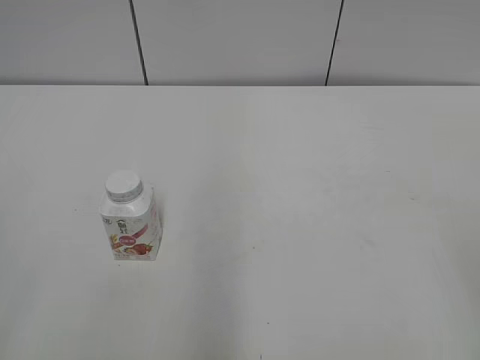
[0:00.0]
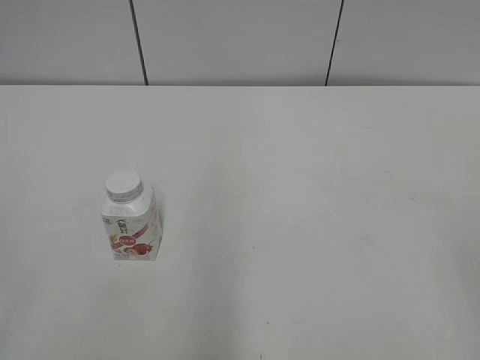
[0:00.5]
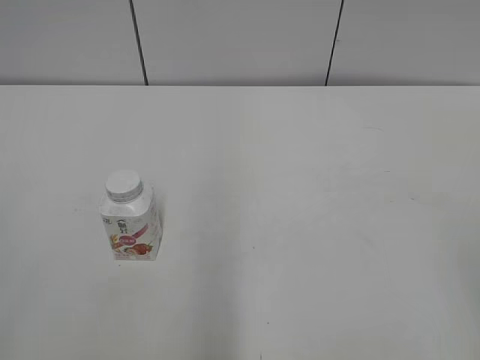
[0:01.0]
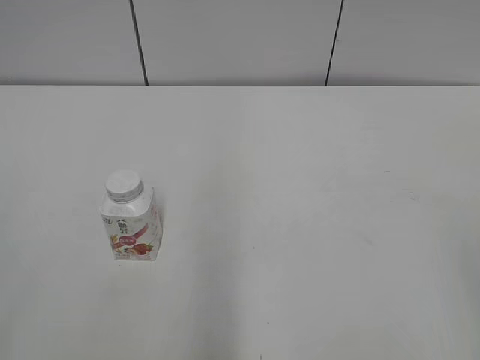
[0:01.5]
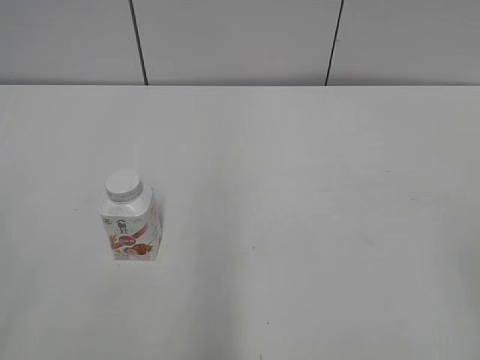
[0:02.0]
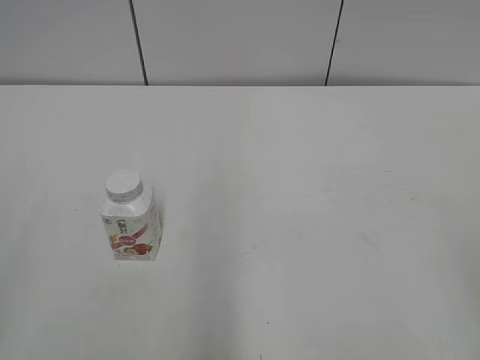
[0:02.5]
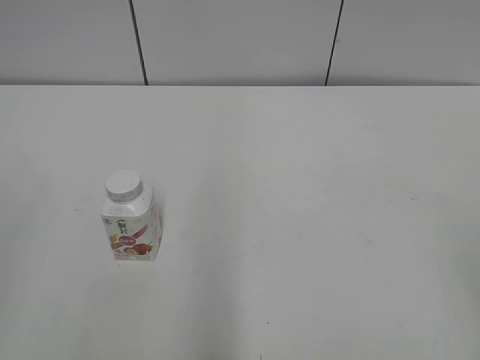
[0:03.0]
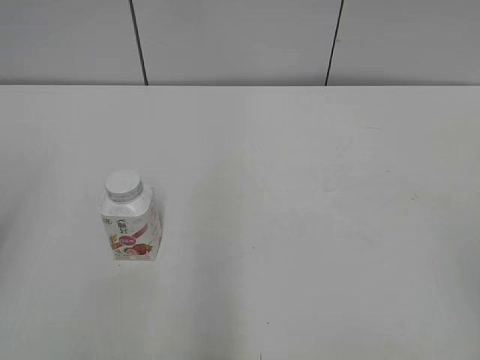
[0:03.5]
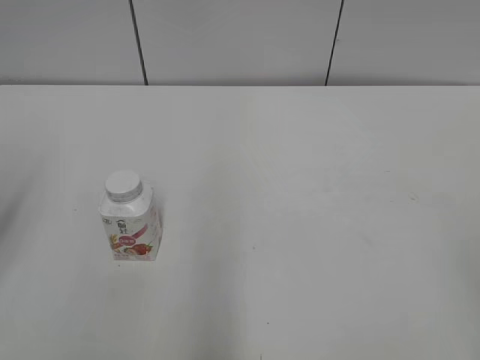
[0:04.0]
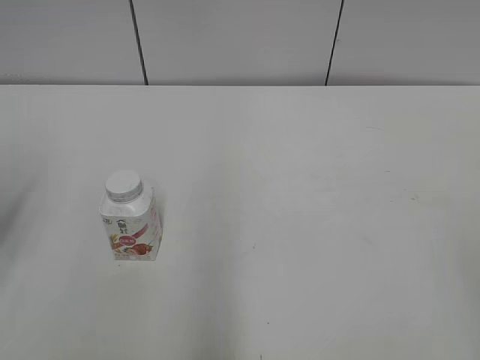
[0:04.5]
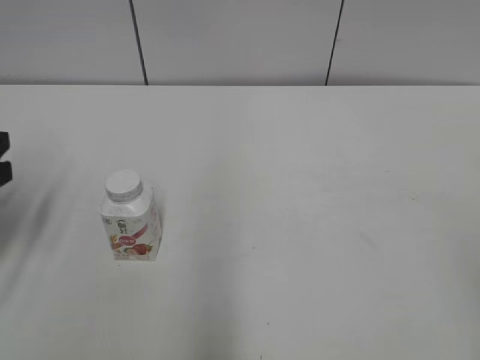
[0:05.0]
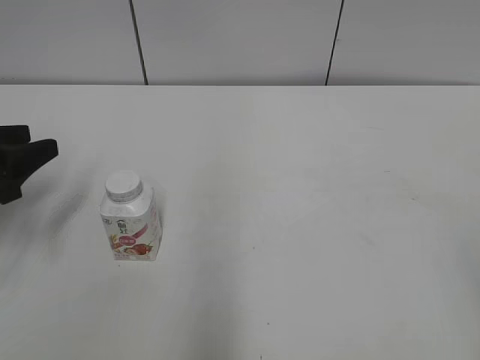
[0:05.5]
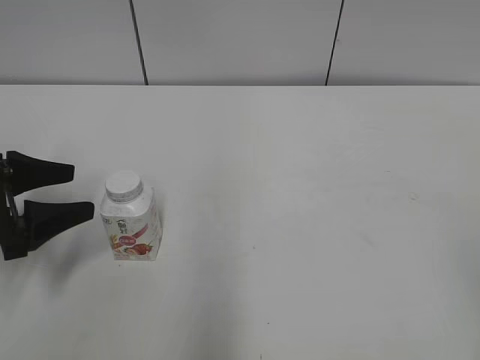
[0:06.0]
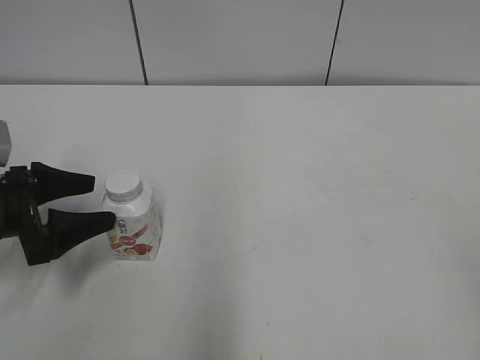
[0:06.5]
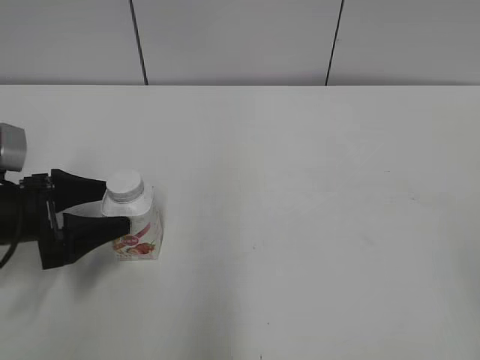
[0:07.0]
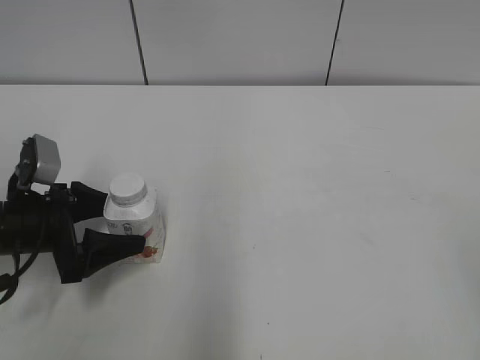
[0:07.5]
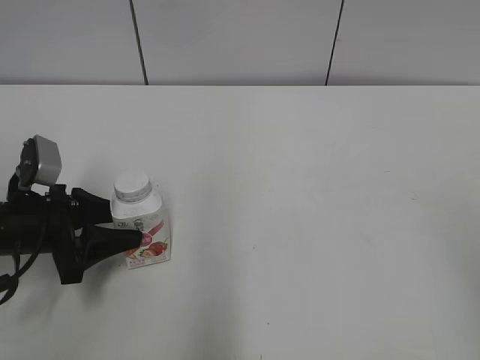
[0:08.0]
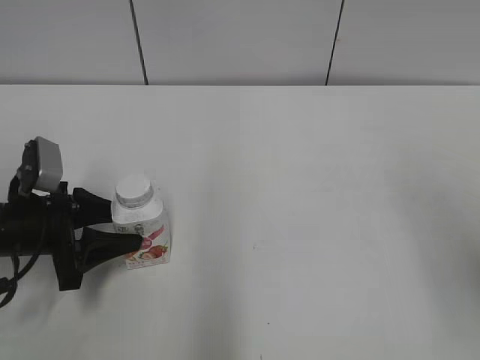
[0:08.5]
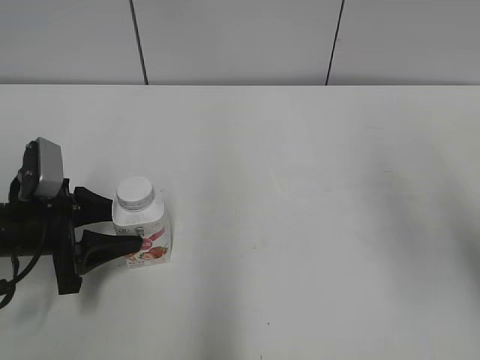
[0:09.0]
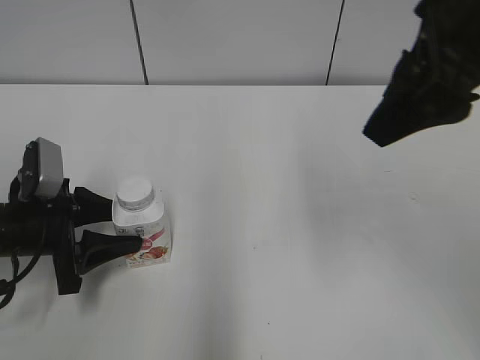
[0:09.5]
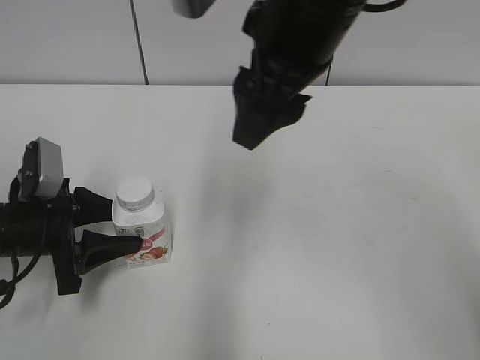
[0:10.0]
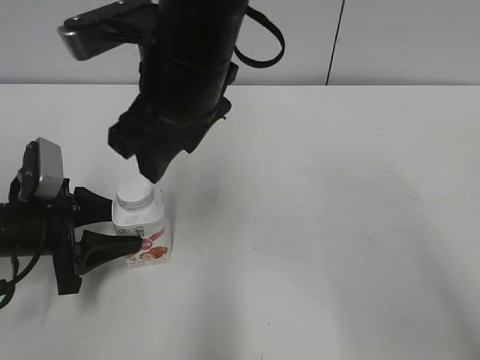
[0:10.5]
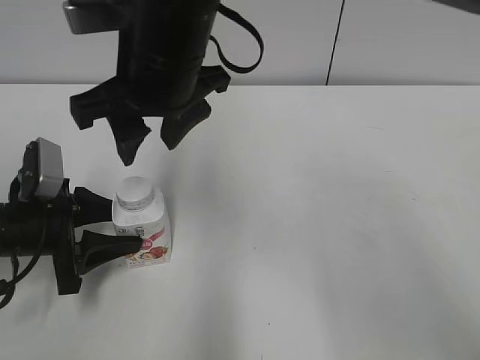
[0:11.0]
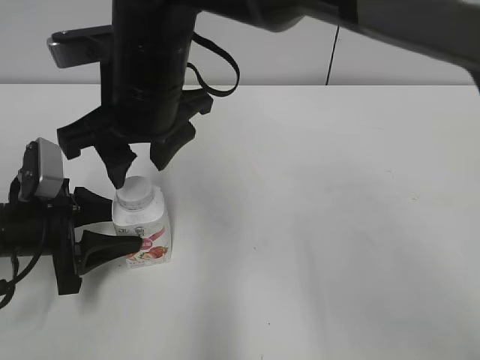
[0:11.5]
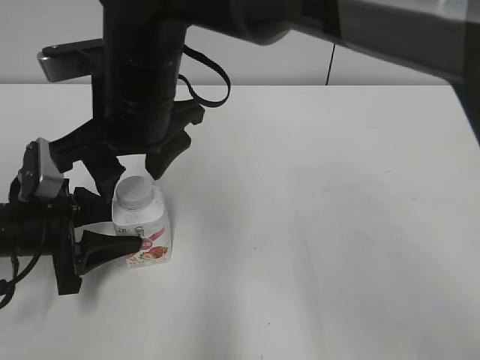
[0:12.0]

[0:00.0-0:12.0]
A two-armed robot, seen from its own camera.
Step, 0:00.0 to 0:08.0: Grab the Yili Changqing with the left hand.
0:04.0 to 0:06.0: The left gripper travels downward and forward by about 15 cm.
0:06.0 to 0:08.0: The left gripper ends up roughly 5 cm from where it was, and closes up.
0:08.0 to 0:10.0: The right gripper goes roughly 35 cm to the left and forward.
0:10.0 to 0:12.0: The right gripper travels to the left and downward by about 15 cm.

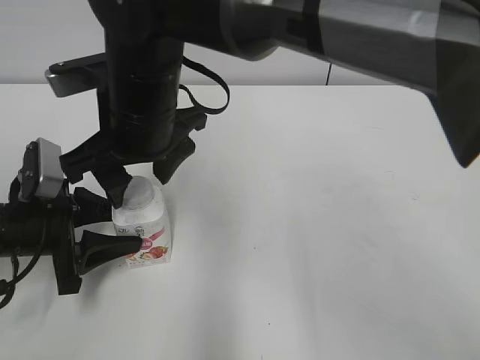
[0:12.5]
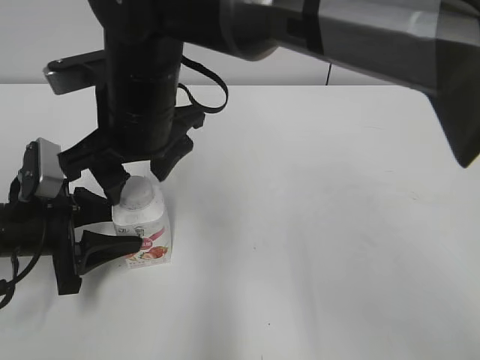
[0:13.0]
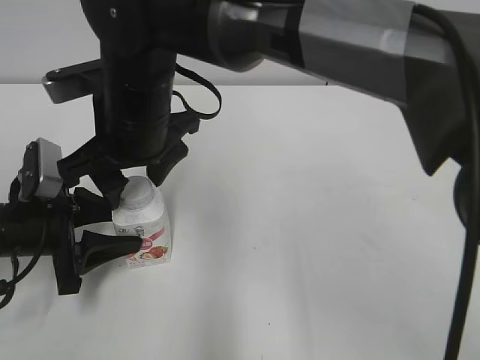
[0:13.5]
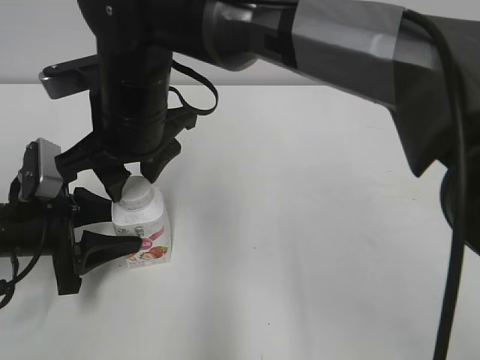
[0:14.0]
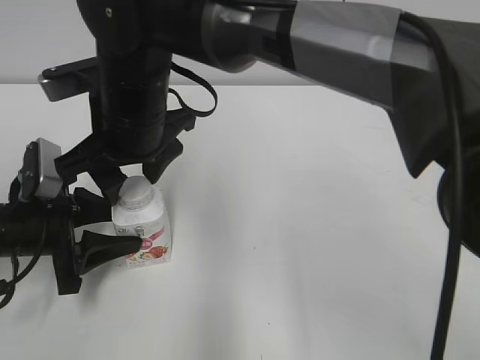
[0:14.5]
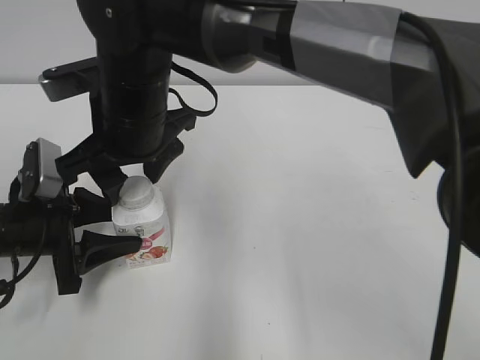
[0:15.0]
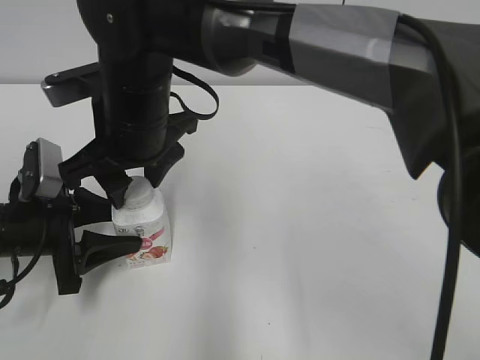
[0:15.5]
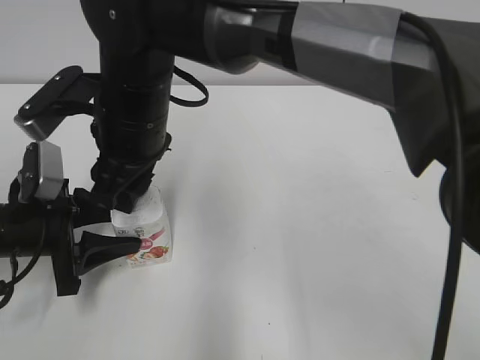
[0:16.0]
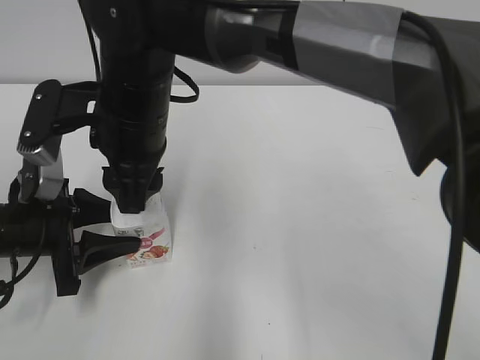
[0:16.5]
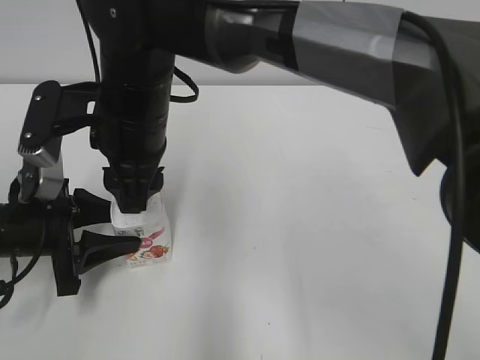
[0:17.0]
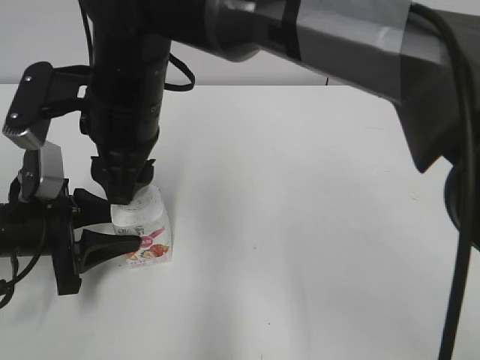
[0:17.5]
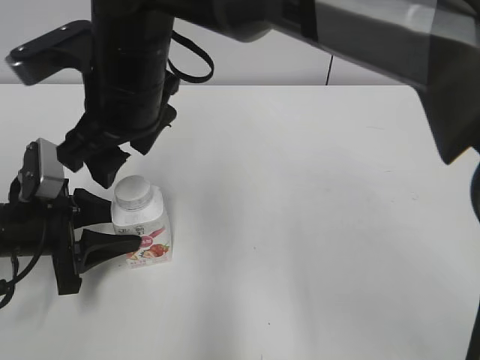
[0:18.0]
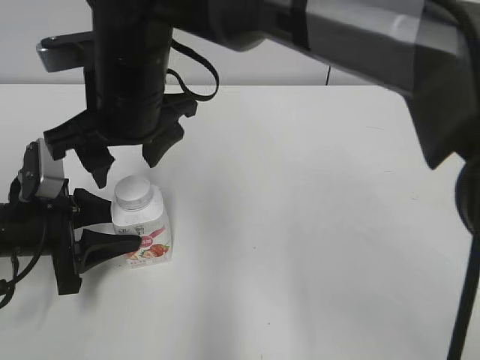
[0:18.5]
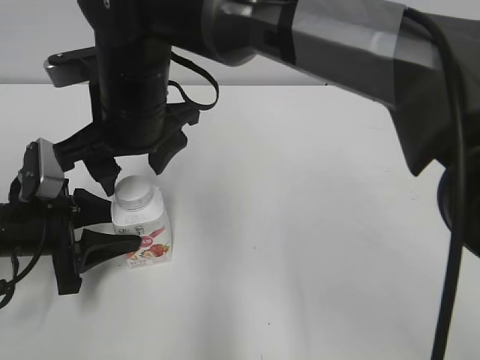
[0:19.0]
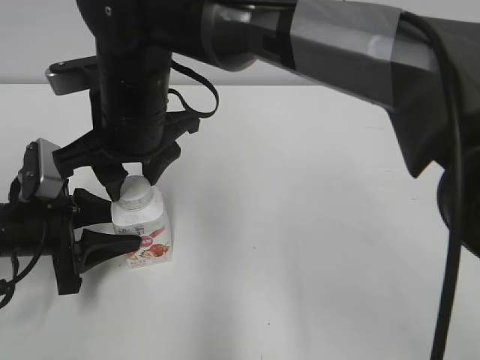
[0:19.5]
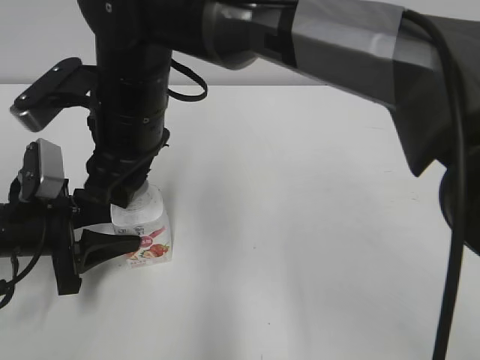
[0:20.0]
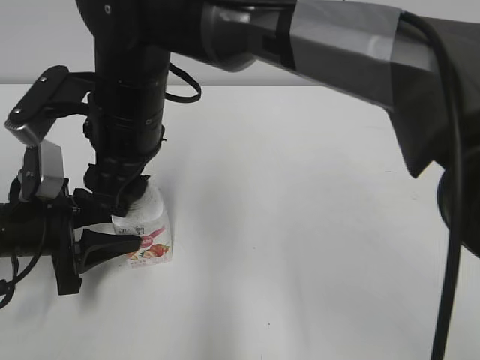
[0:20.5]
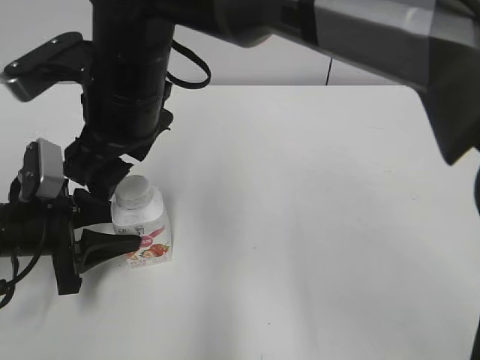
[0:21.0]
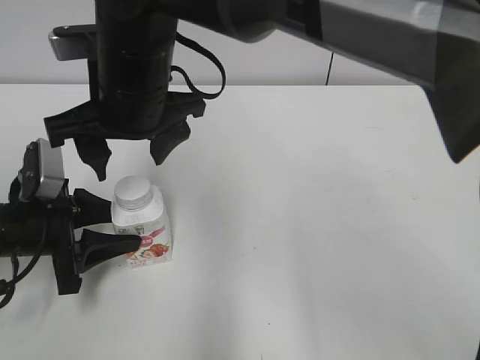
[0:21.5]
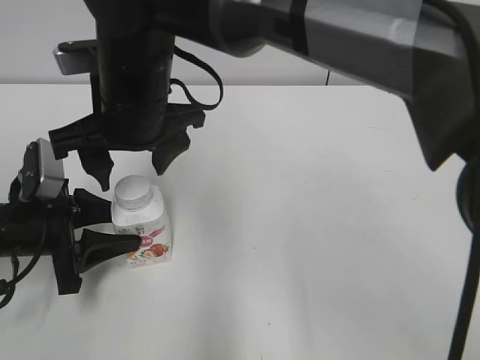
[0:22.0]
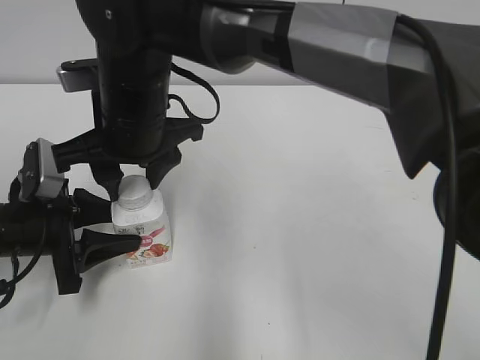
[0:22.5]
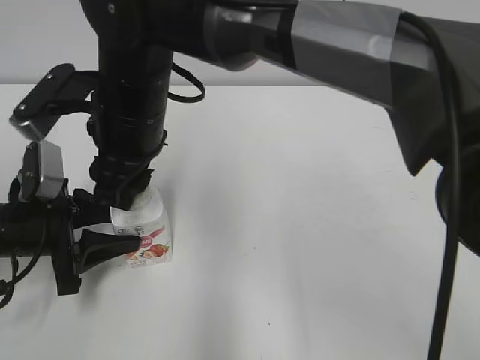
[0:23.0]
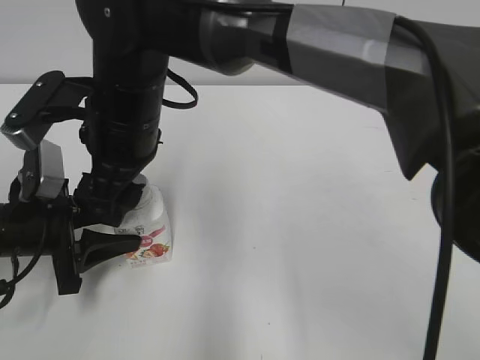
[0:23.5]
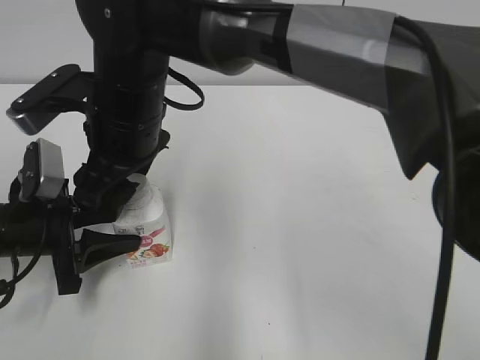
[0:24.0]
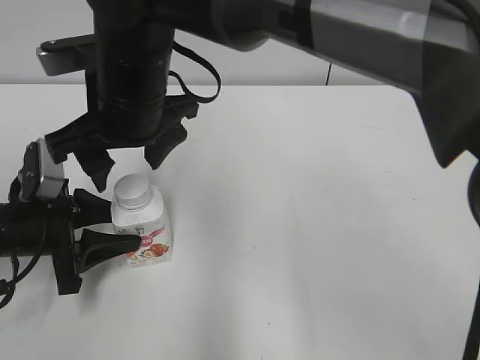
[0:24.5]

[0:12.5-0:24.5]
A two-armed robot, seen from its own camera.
0:12.5 to 0:14.5: The right gripper closes, then opens again.
0:14.5 to 0:16.5: The right gripper closes up.
0:16.5 to 0:18.5: The right gripper opens up.
0:18.5 to 0:20.5: The right gripper closes, then reopens.
0:20.5 to 0:22.5: The right gripper closes up.
0:22.5 to 0:24.5: The right gripper opens its fingers.

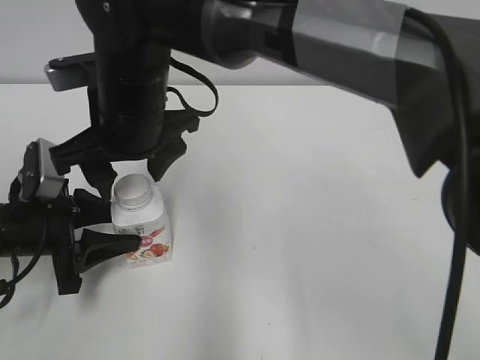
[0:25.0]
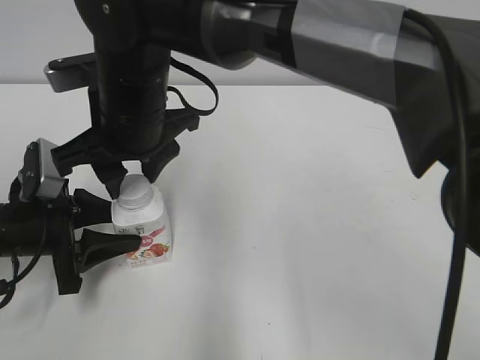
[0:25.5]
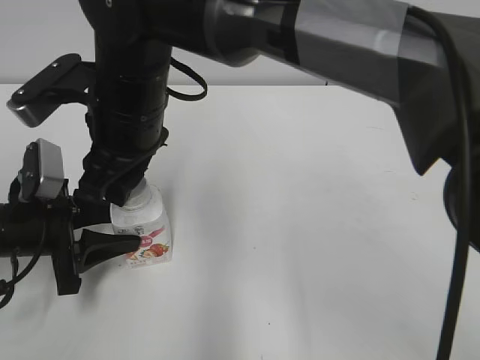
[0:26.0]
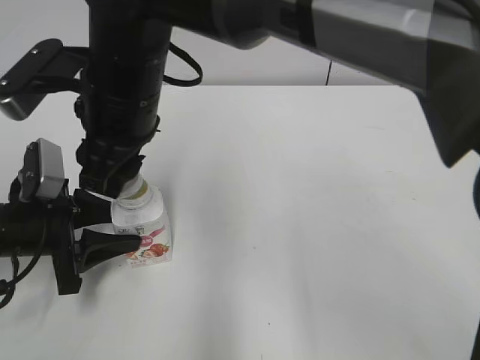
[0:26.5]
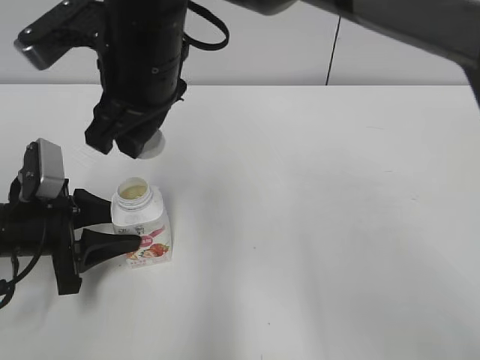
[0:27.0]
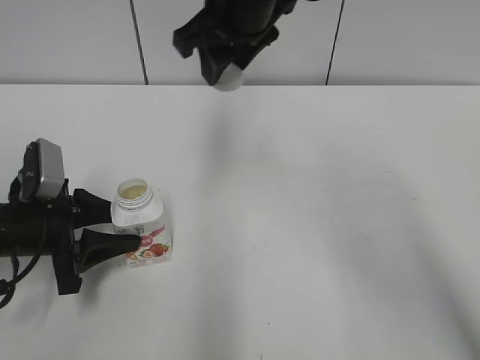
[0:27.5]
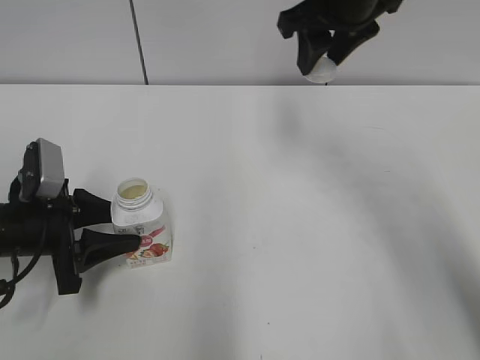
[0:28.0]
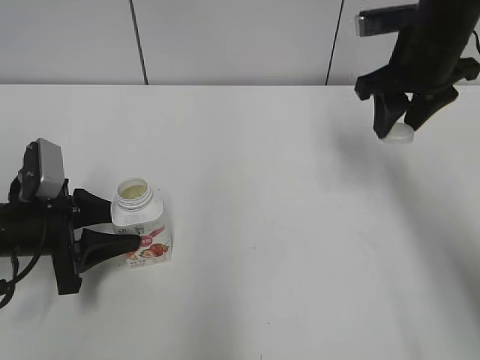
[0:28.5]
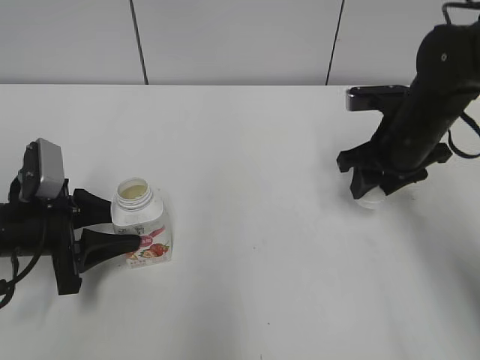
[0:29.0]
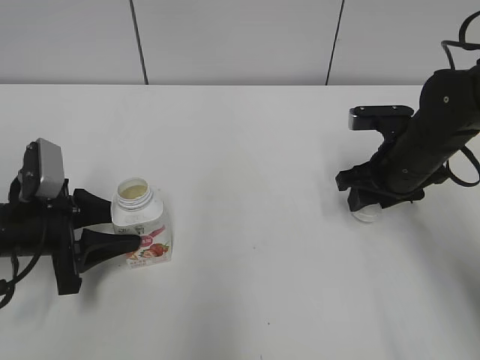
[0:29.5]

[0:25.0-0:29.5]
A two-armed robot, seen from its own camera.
0:25.0 to 0:27.0: The right gripper changes place by roughly 5 cm, and closes up.
0:27.0 to 0:29.5: The right gripper shifts about 30 cm to the right and downward.
